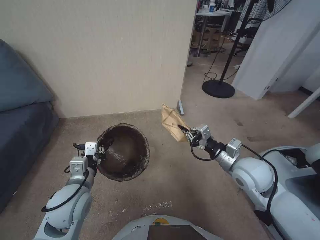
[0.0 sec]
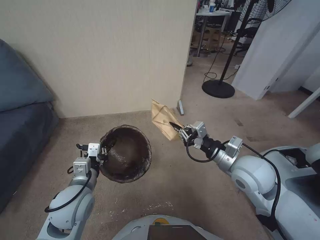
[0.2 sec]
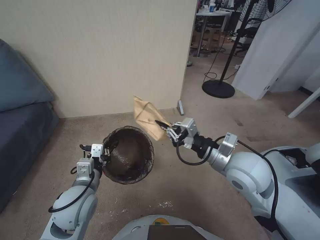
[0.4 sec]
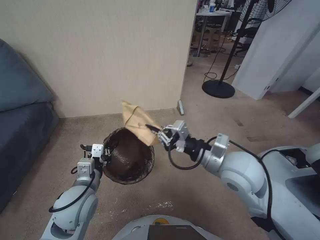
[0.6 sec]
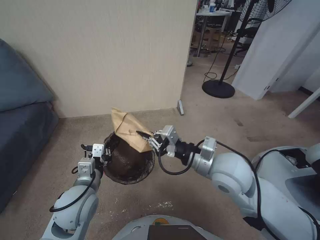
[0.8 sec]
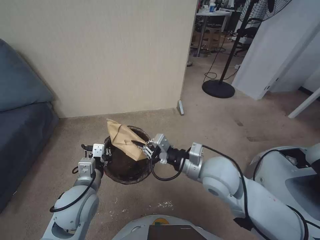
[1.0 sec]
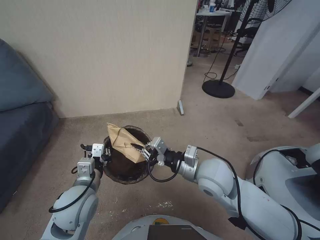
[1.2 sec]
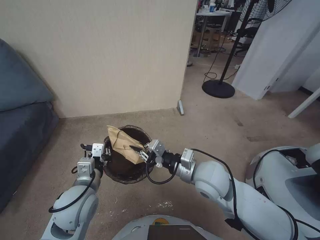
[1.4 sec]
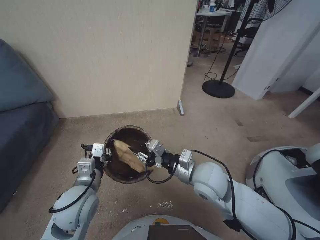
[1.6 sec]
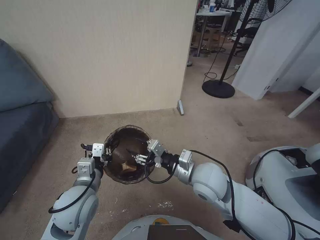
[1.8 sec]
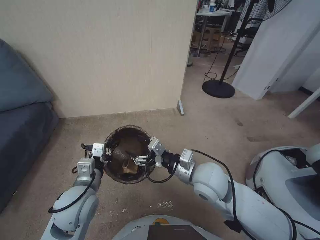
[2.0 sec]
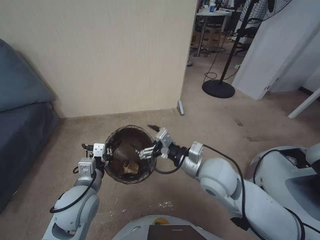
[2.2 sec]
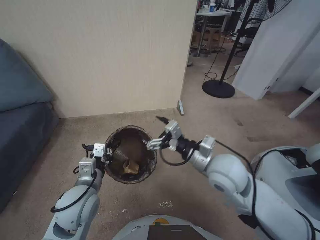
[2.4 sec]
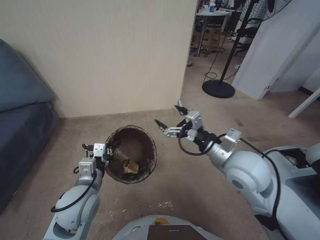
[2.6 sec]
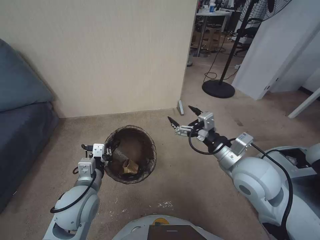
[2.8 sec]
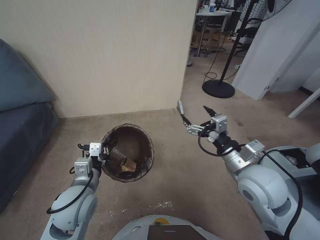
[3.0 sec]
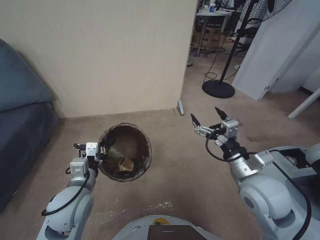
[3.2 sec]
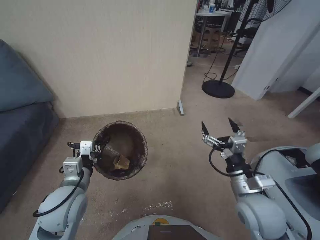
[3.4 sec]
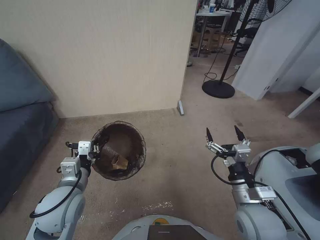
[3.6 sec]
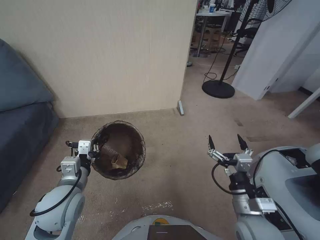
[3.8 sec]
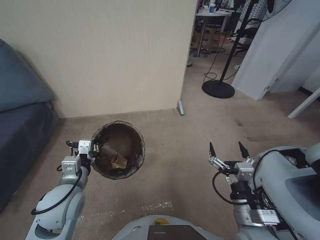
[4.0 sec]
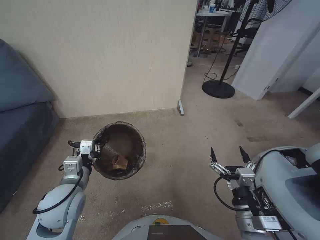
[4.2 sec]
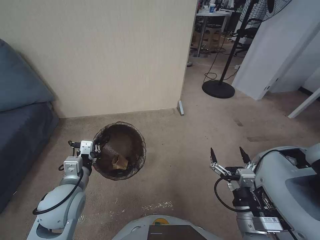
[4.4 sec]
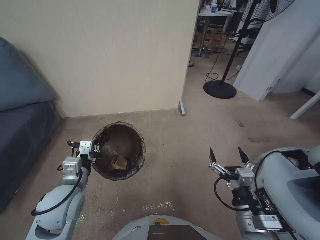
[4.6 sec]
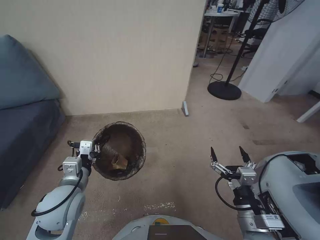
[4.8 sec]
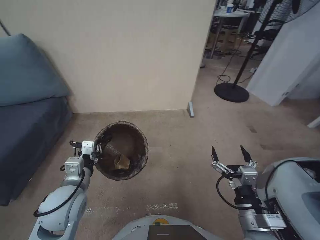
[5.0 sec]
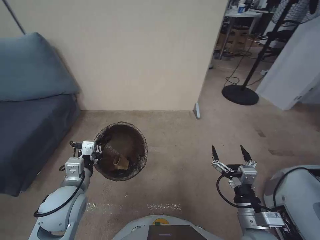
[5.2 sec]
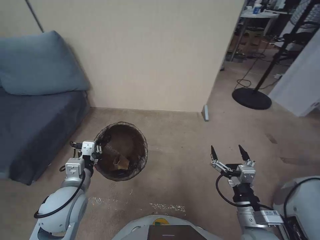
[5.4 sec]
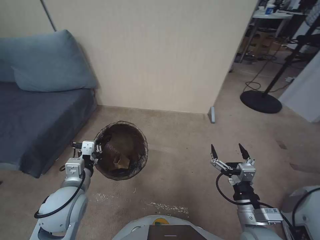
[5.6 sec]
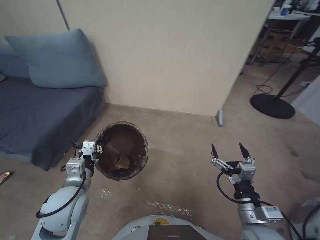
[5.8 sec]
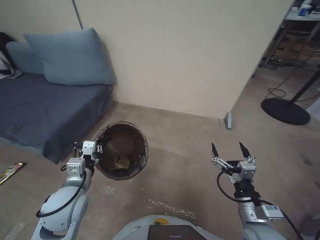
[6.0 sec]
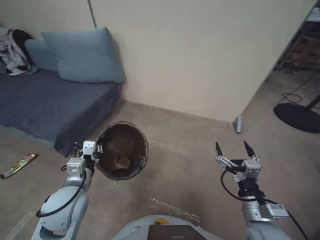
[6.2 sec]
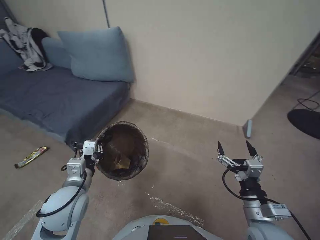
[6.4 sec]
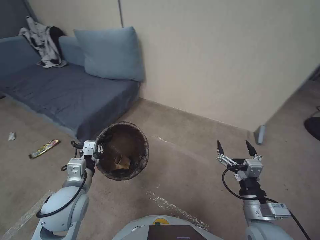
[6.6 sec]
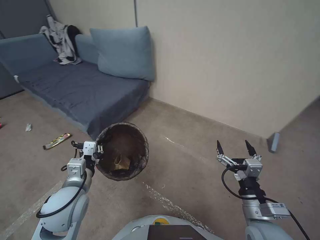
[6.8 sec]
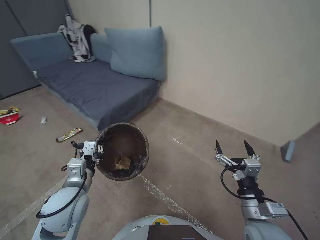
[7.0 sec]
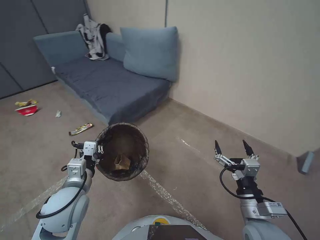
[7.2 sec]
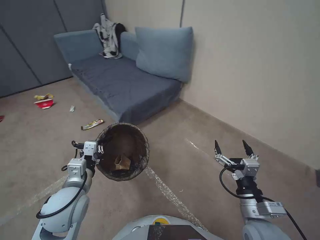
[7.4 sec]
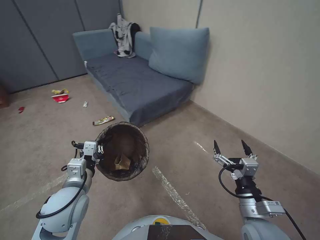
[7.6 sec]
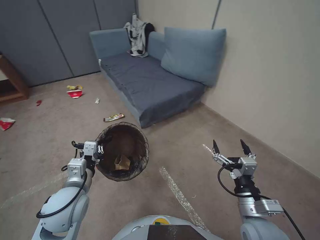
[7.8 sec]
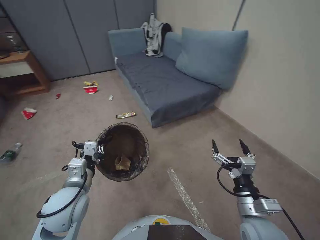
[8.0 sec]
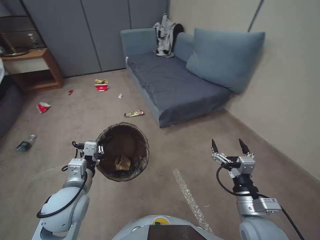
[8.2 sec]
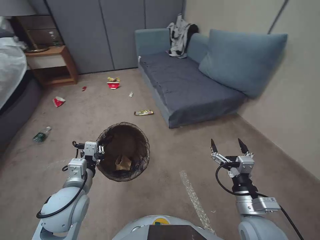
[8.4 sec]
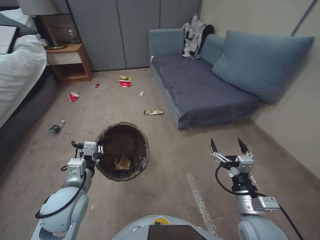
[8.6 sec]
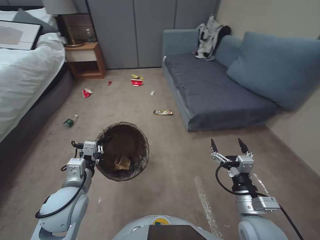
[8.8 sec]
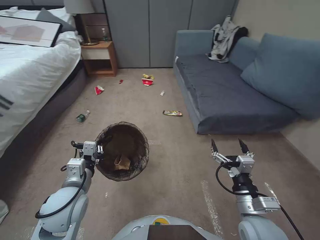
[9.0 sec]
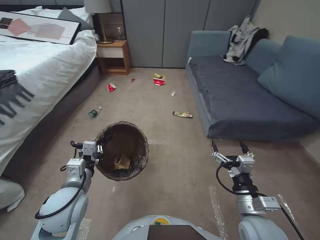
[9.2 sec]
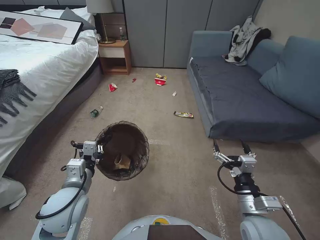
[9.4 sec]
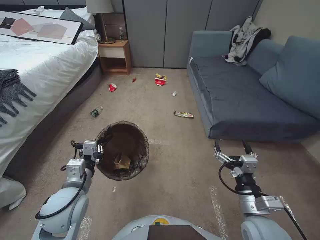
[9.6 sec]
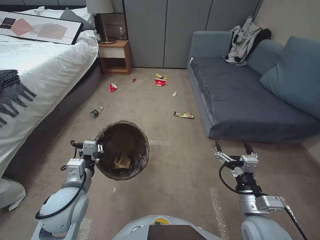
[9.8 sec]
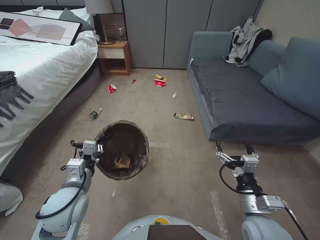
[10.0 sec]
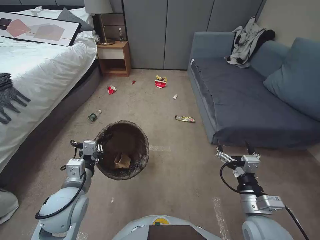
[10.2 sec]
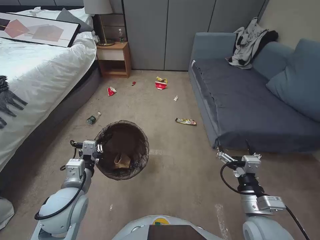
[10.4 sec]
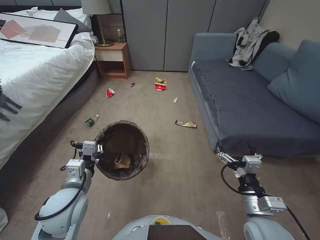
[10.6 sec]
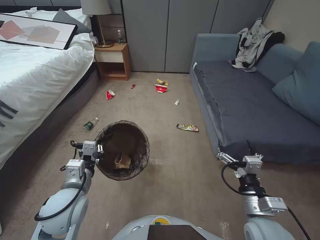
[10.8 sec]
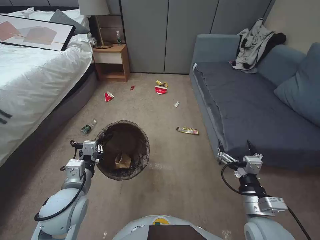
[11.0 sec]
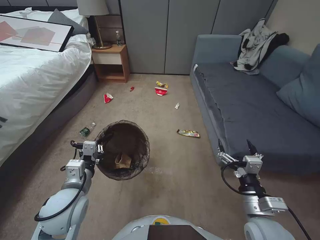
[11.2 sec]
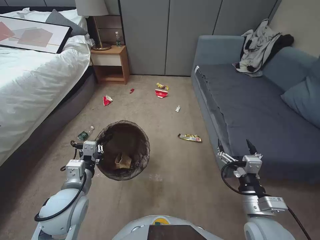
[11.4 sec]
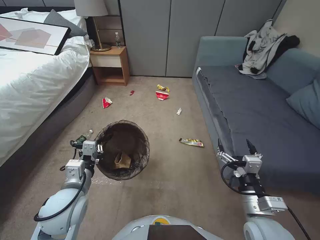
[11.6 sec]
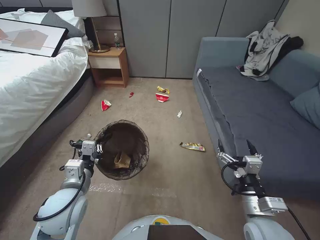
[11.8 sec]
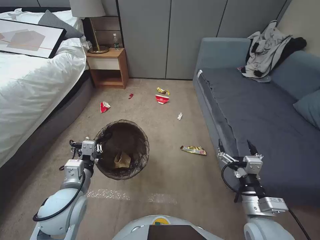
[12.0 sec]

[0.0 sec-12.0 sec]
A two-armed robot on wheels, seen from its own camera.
Task of the whole recording: Pick up the trash bin, then pick up the garbage from the floor and place it into the trash bin.
0.0 sec to 1.6 sec: The right gripper goes roughly 15 cm to the left.
1.6 sec to 3.0 sec: The right gripper goes some 10 cm to the right, and opens up.
3.0 sec to 4.4 sec: The right gripper moves backward and downward, about 20 cm.

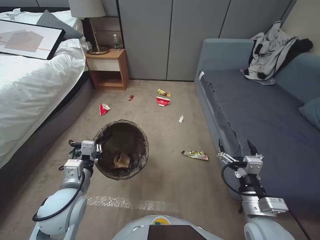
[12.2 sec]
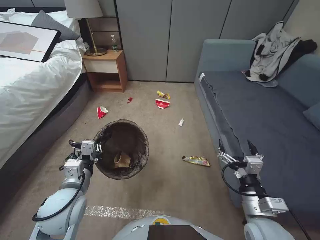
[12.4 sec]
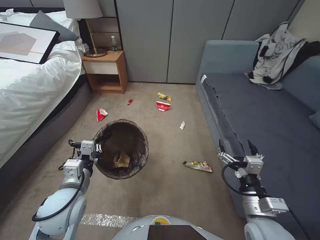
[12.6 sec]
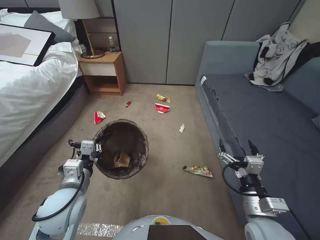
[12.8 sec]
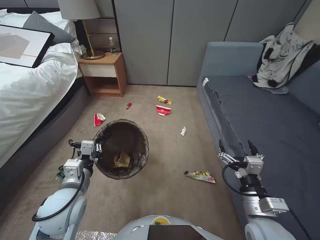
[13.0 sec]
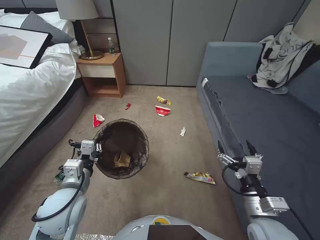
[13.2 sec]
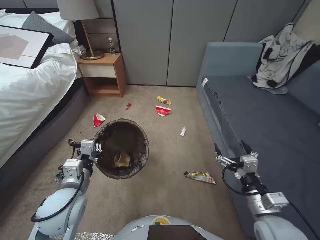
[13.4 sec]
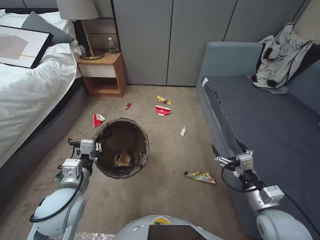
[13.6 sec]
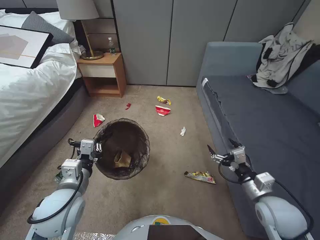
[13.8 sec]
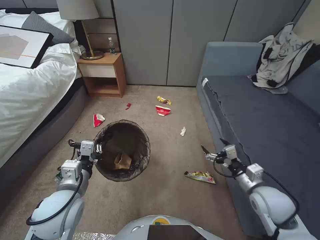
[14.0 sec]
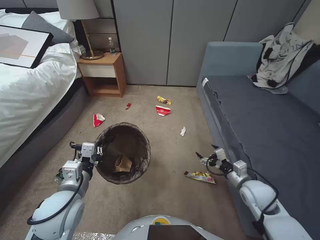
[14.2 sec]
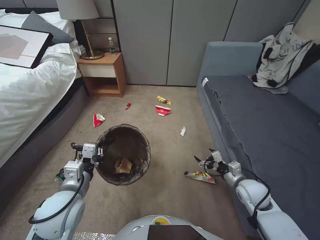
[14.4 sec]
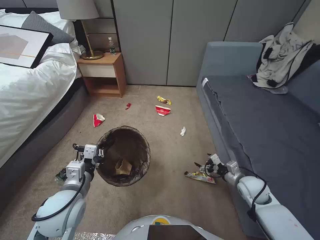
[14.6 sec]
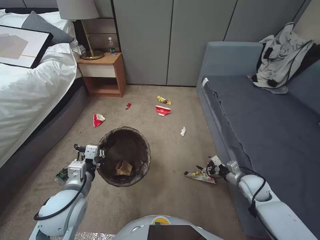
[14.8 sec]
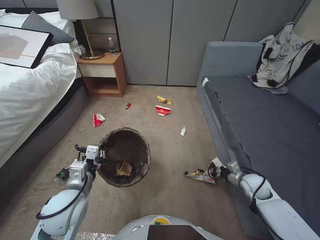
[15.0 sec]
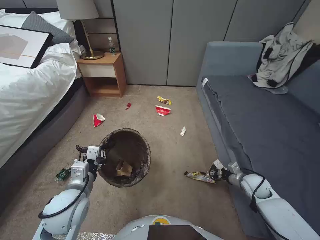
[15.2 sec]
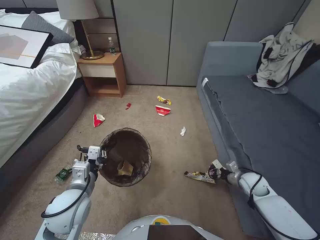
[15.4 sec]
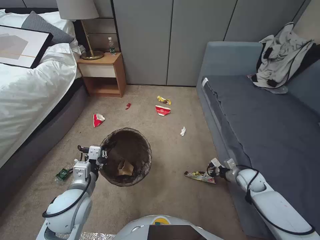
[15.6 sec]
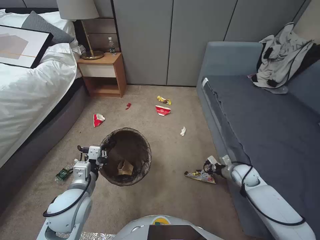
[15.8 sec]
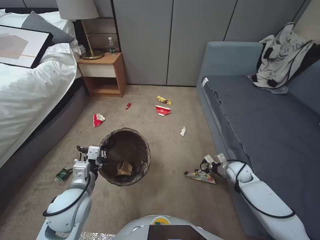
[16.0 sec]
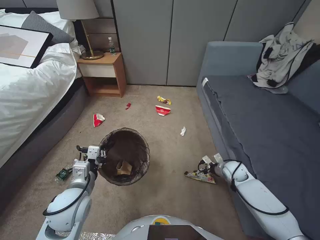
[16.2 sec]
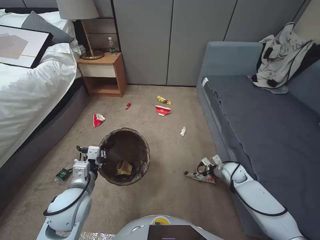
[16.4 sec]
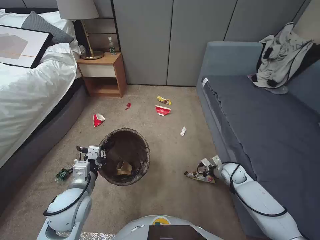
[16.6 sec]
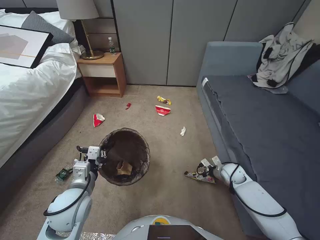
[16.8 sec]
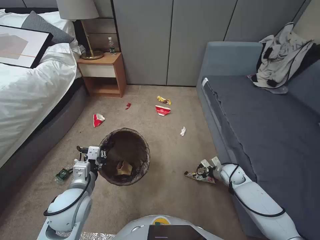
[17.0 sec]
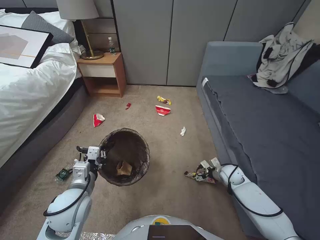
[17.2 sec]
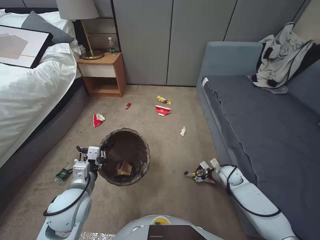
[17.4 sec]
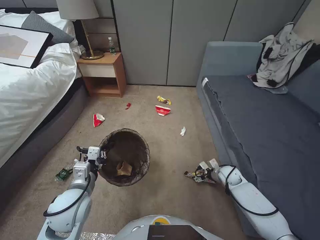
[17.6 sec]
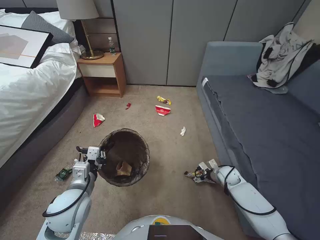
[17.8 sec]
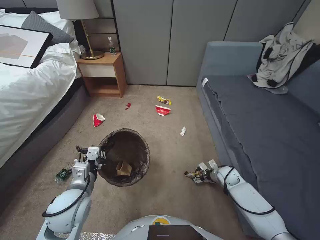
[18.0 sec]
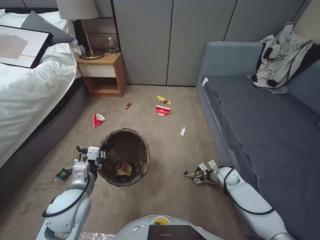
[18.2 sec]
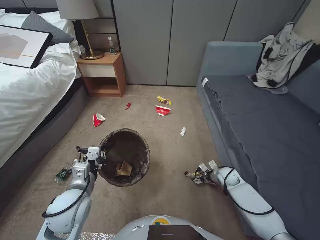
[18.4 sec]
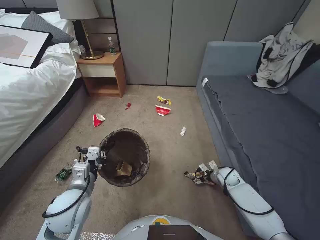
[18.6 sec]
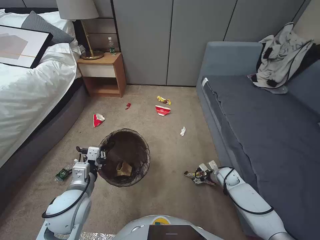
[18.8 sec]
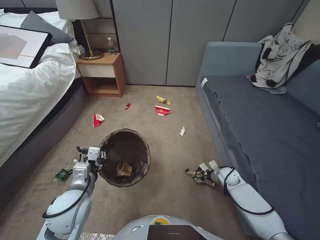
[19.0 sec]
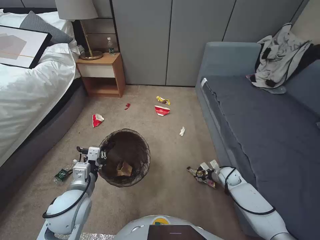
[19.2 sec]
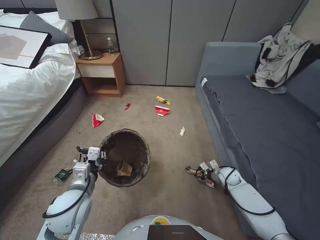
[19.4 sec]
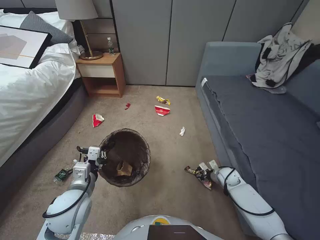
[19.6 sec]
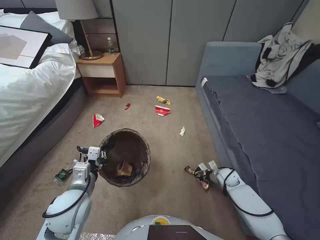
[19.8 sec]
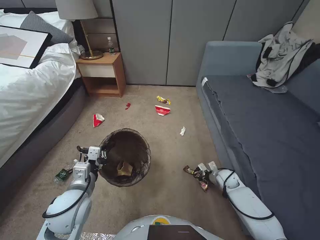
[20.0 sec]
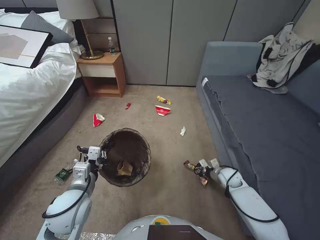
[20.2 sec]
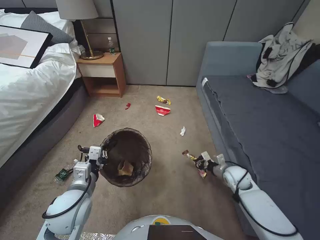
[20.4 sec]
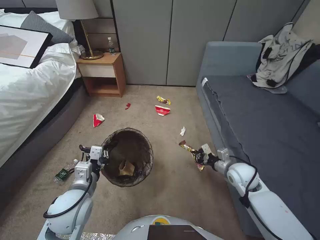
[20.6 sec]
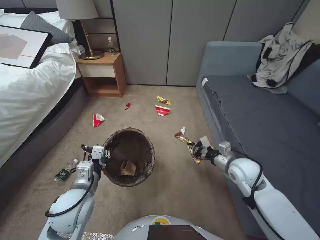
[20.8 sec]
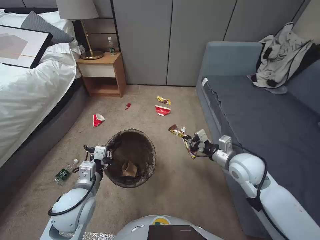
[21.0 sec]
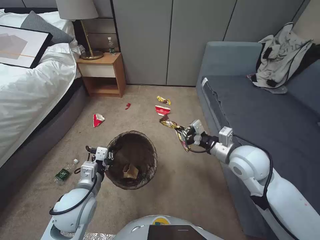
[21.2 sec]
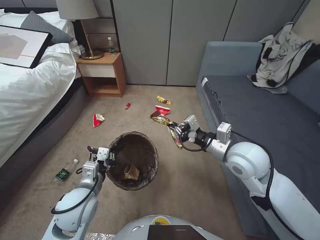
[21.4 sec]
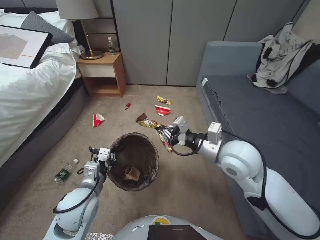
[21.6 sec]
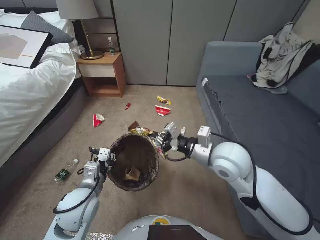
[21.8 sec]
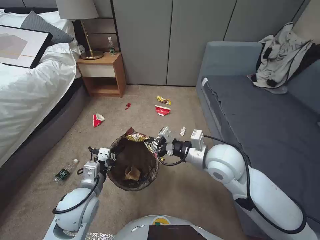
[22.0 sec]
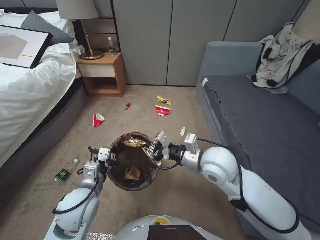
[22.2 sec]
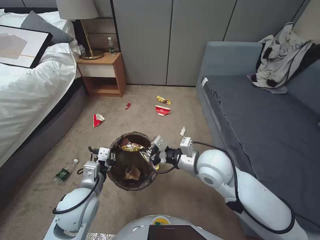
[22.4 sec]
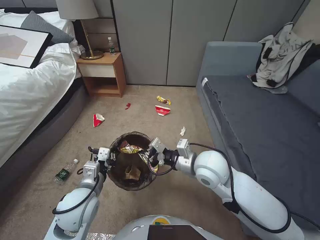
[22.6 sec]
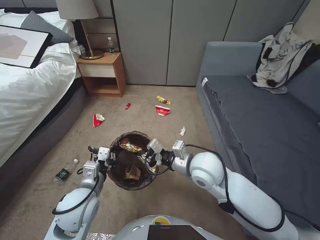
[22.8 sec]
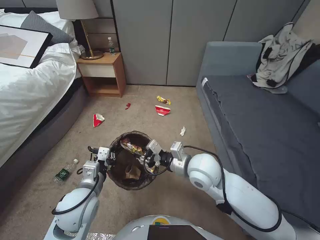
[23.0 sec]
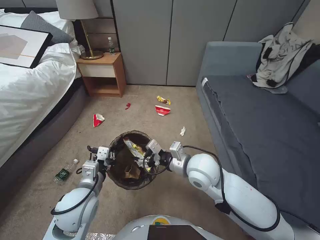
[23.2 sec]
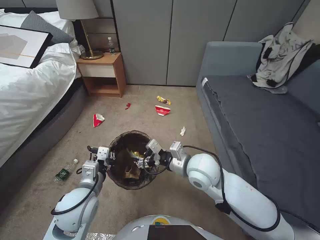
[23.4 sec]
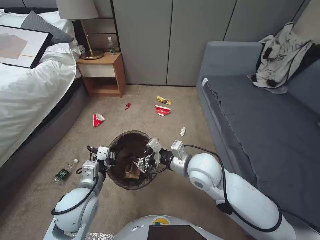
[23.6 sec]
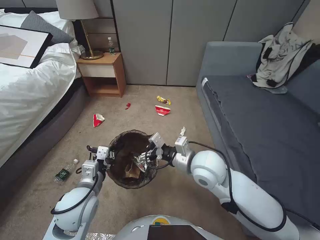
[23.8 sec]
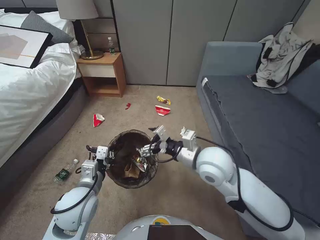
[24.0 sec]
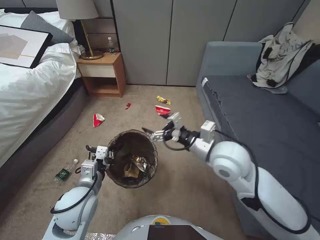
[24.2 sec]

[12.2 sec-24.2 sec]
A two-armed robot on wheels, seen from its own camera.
Task of the whole recording: Pick up the trash bin, then pick up the garbage from the floor and place it into the trash bin.
12.2 sec to 13.8 sec: The right gripper goes approximately 5 cm to the right.
13.8 sec to 15.2 sec: The right gripper travels downward, forward and to the right by approximately 20 cm.
15.2 sec to 16.6 sec: The right gripper travels forward and to the left by approximately 10 cm.
16.6 sec to 18.2 sec: The grippers stay close to where they were, moving slightly.
18.2 sec to 19.8 sec: The right gripper closes up.
19.8 sec to 21.2 sec: The right gripper moves upward, approximately 30 cm.
21.2 sec to 22.6 sec: The right gripper travels to the left by about 10 cm.
22.6 sec to 24.2 sec: The right gripper opens its fingers.
